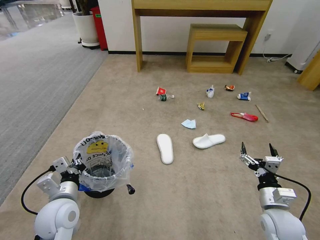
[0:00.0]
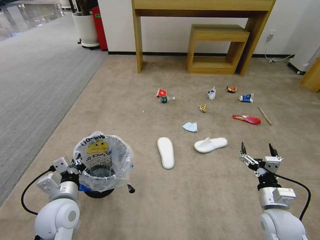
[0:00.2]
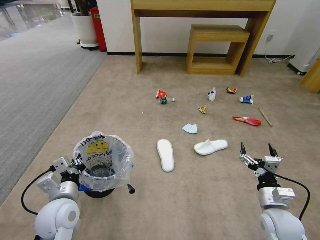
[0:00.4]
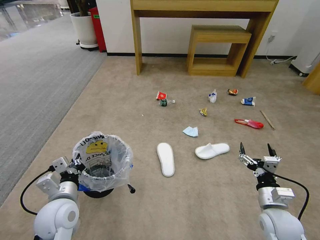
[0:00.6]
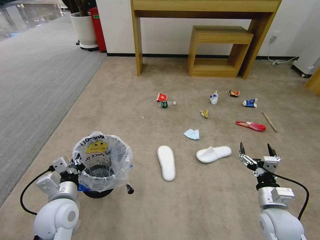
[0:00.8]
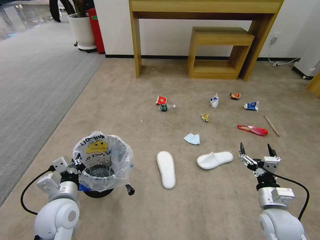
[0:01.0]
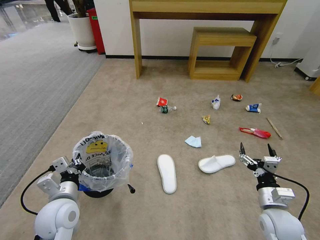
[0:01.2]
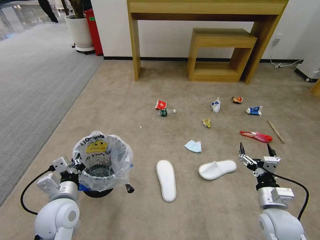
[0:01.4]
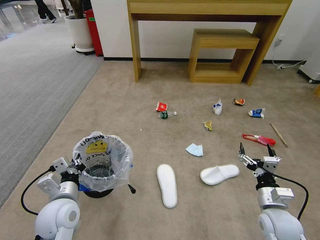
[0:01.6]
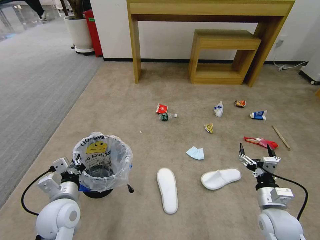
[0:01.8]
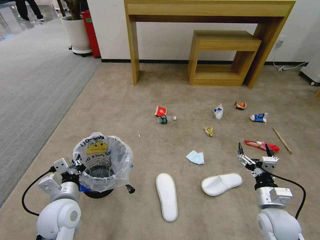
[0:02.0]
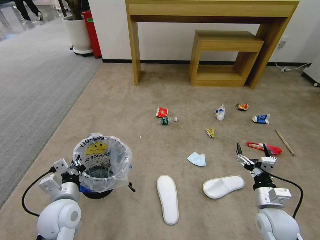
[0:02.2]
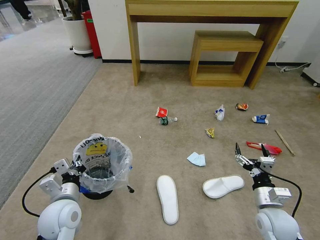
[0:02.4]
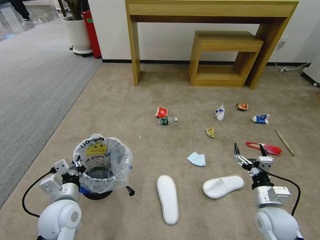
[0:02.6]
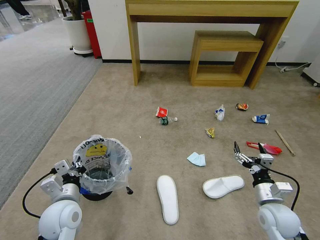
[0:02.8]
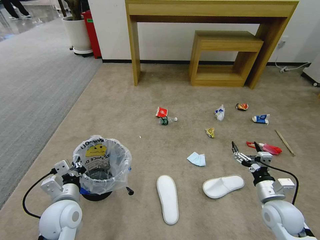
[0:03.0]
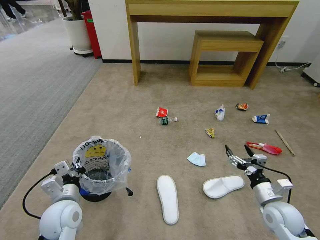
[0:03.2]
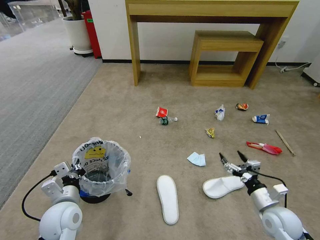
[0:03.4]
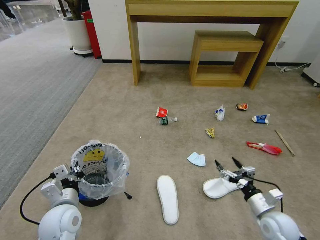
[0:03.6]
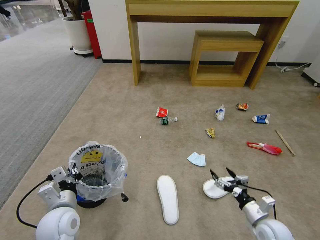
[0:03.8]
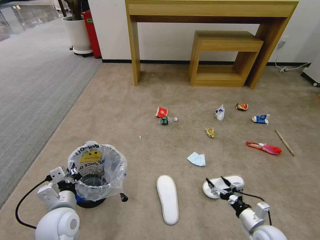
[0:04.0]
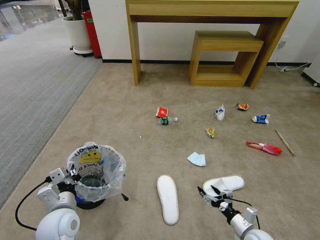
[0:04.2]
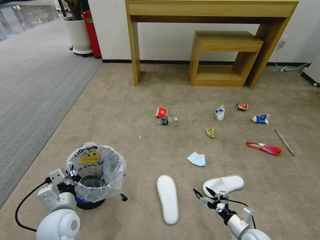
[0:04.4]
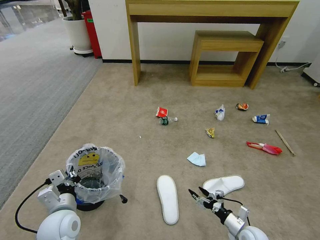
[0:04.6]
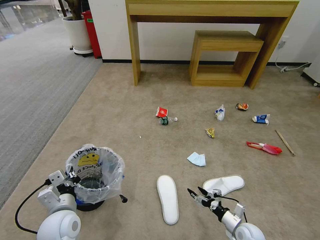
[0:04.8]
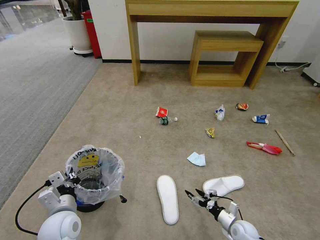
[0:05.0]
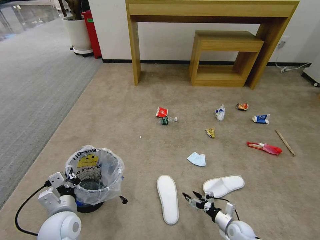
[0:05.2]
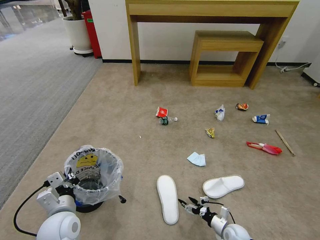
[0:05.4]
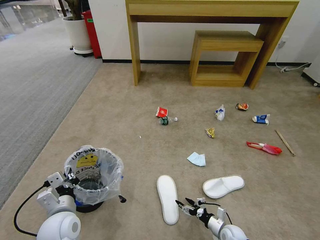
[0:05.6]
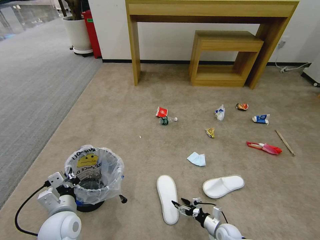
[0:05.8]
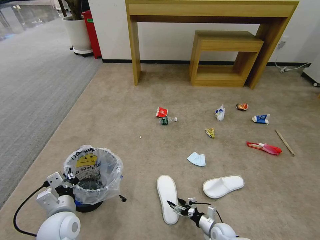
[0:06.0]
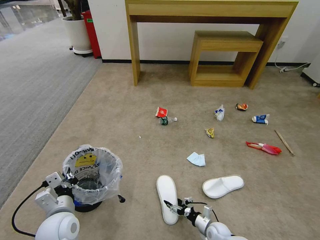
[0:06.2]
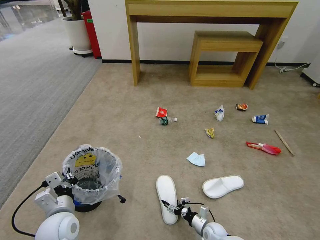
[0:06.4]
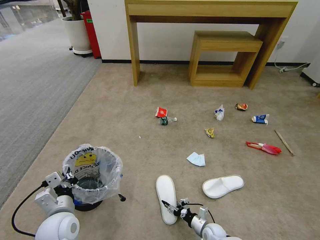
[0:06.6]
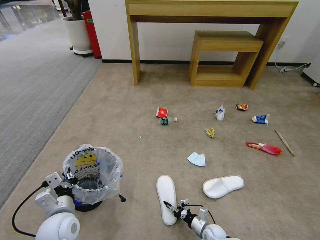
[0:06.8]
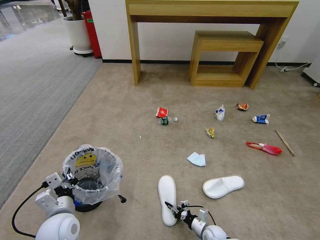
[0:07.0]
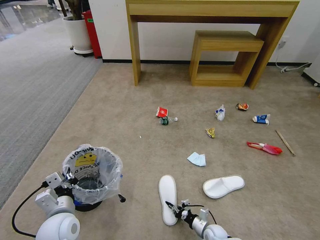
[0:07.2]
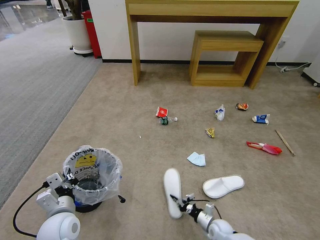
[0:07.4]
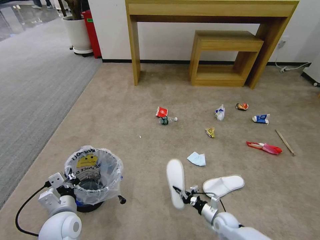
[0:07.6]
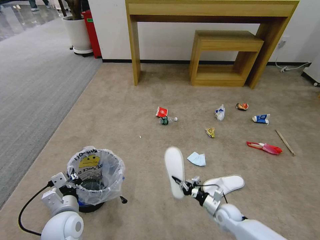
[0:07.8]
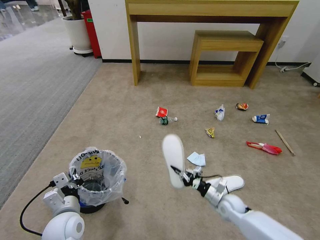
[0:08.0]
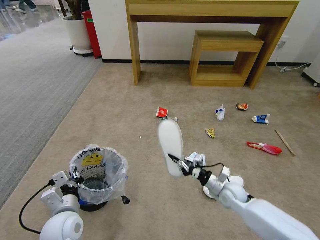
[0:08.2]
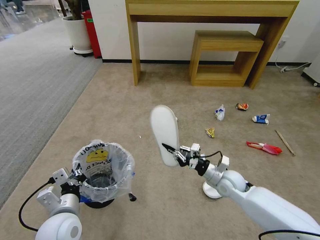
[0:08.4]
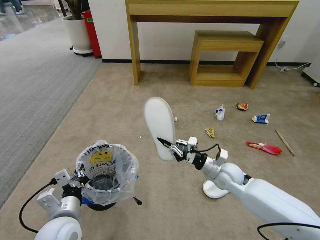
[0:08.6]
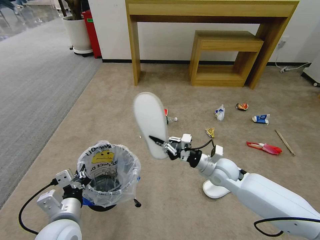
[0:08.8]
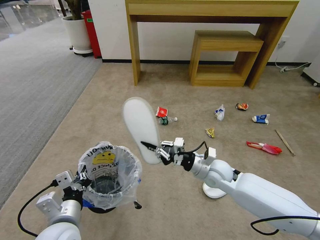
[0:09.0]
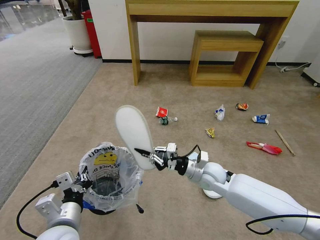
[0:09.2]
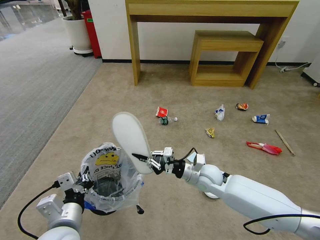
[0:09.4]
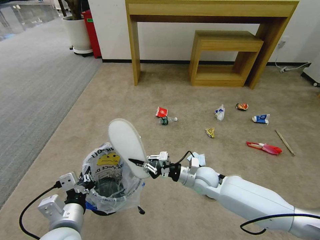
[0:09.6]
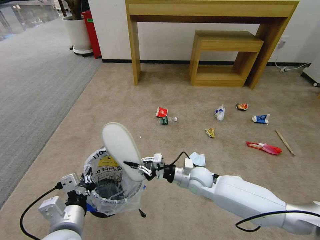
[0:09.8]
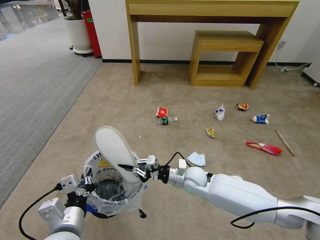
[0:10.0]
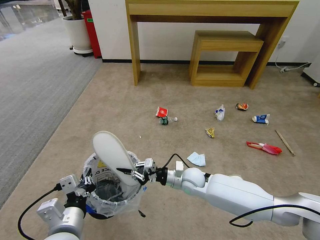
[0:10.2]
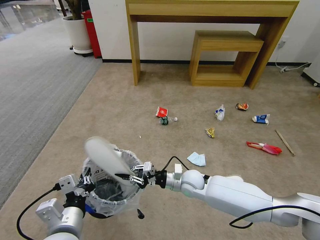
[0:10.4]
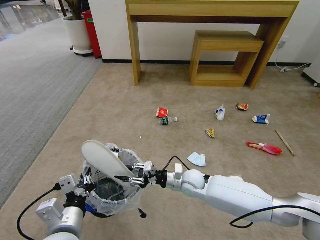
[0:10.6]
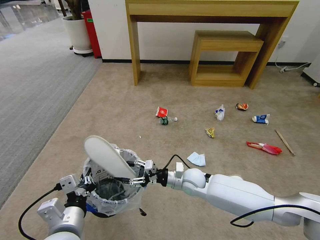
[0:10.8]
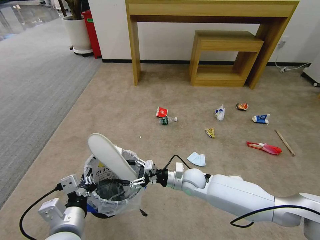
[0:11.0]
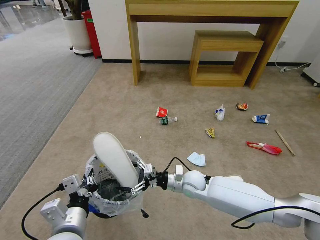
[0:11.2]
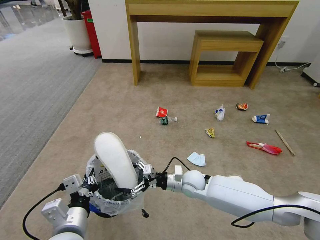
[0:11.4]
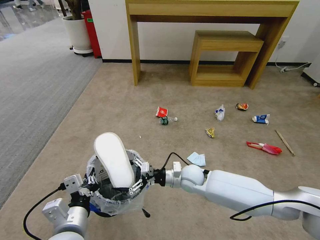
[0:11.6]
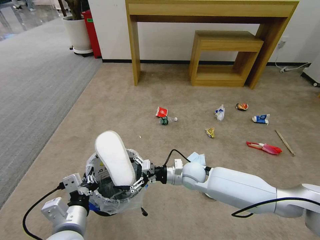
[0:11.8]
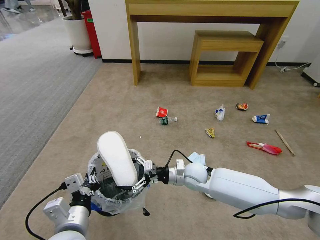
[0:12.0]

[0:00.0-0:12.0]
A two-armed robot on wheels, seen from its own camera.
Task of the whole recording: Pick up the trash bin and place the garbage on the floor into it.
0:01.6 to 0:03.0: The grippers move only a little.
0:03.0 to 0:04.4: The right gripper shifts approximately 15 cm downward.
0:04.4 to 0:06.0: The right gripper is displaced downward and to the left by some 10 cm.
0:06.0 to 0:07.6: The right gripper moves roughly 5 cm, and closes its fingers.
0:07.6 to 0:09.0: The left gripper goes approximately 5 cm upward. Meanwhile the right gripper moves upward, about 25 cm.
0:09.0 to 0:10.4: The right gripper shifts approximately 10 cm to the left and downward.
0:10.4 to 0:12.0: The right gripper opens up.

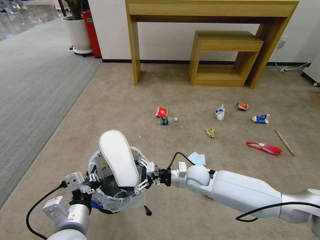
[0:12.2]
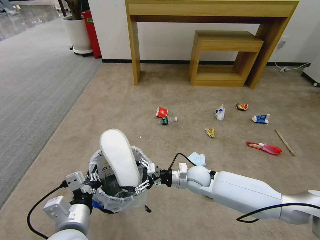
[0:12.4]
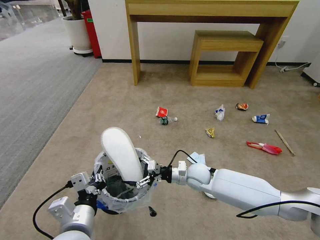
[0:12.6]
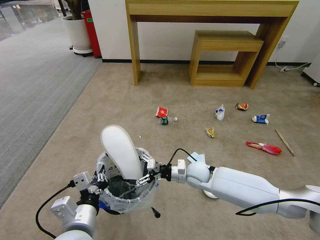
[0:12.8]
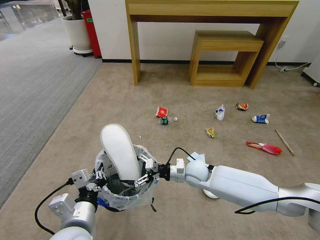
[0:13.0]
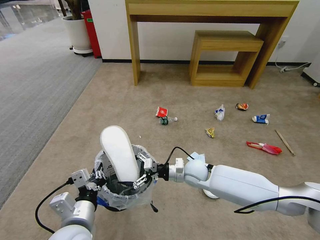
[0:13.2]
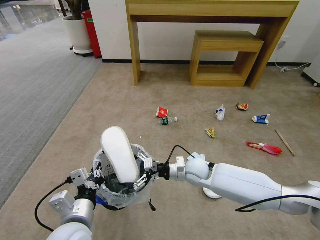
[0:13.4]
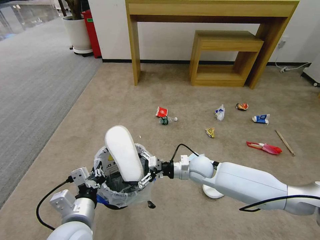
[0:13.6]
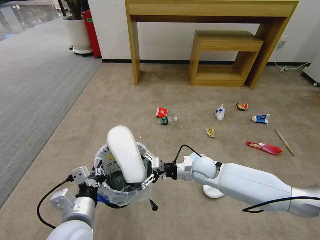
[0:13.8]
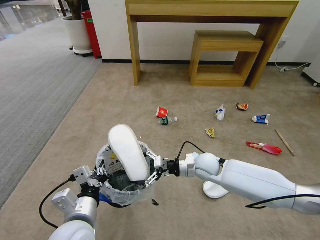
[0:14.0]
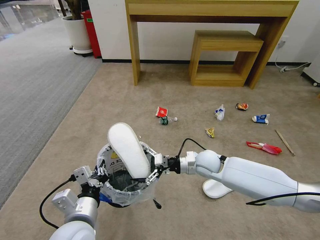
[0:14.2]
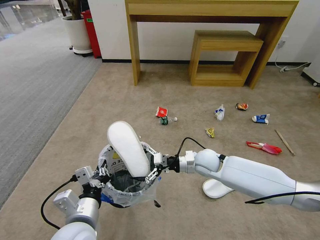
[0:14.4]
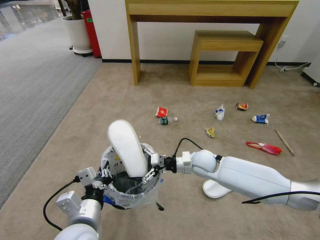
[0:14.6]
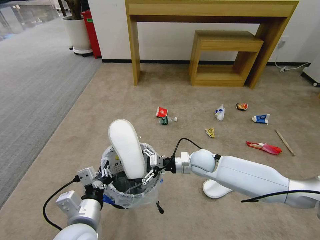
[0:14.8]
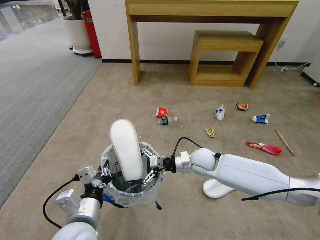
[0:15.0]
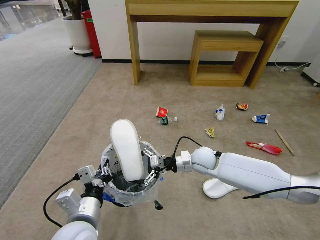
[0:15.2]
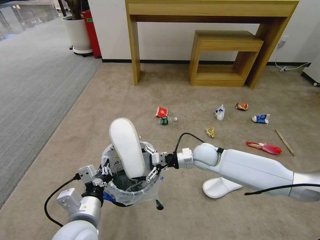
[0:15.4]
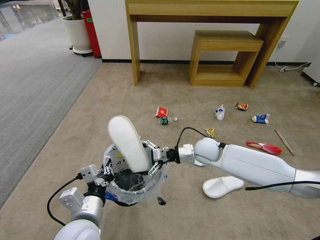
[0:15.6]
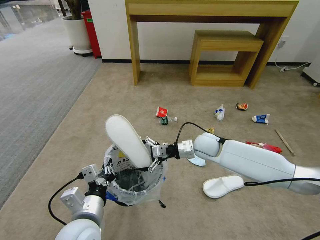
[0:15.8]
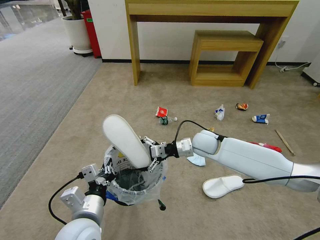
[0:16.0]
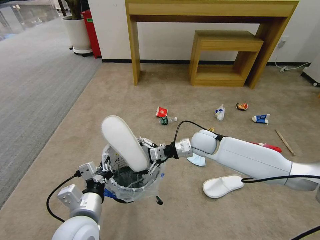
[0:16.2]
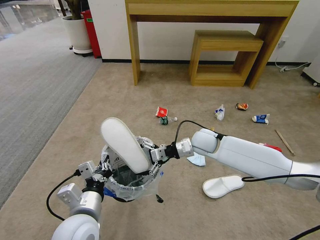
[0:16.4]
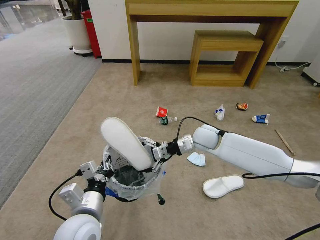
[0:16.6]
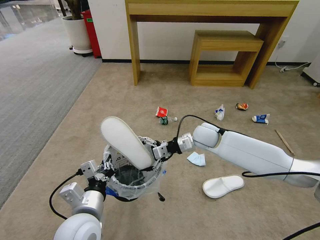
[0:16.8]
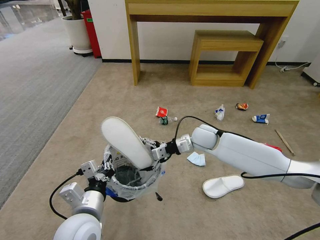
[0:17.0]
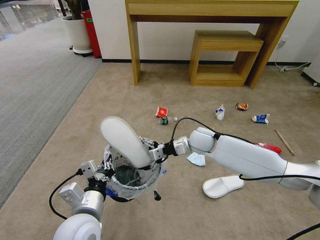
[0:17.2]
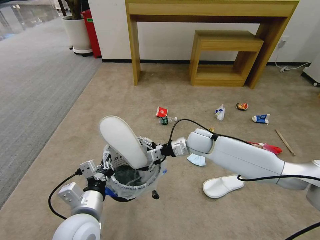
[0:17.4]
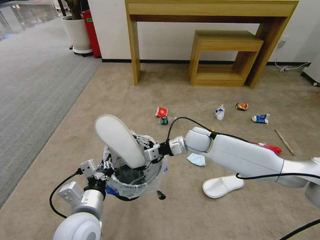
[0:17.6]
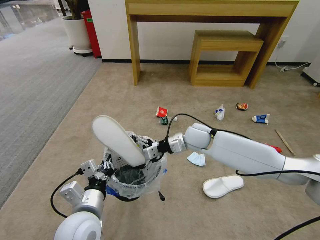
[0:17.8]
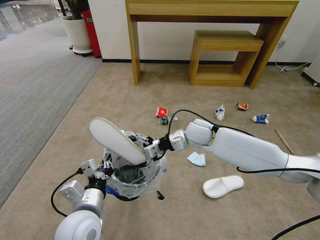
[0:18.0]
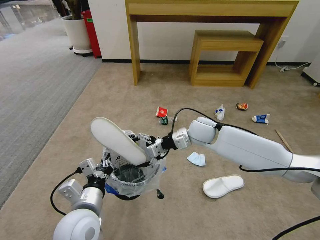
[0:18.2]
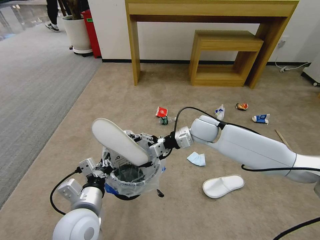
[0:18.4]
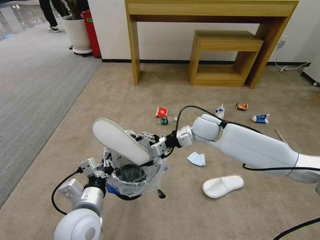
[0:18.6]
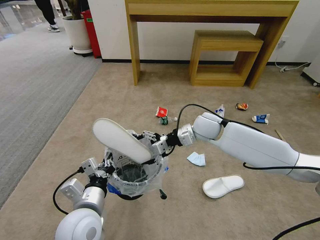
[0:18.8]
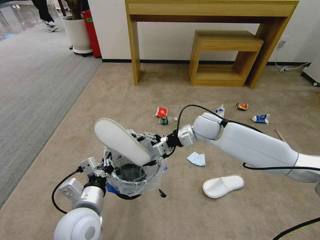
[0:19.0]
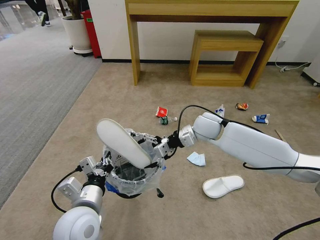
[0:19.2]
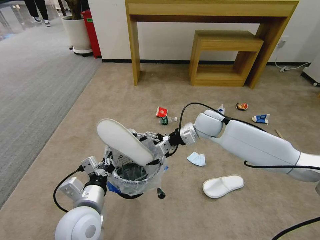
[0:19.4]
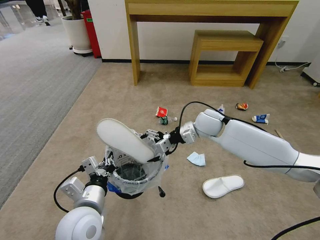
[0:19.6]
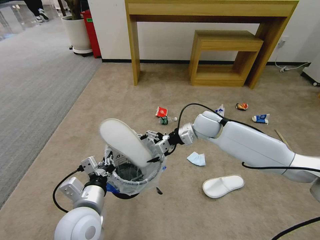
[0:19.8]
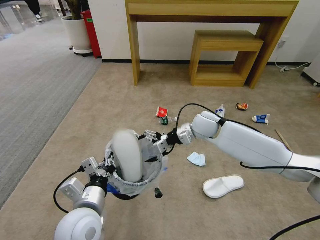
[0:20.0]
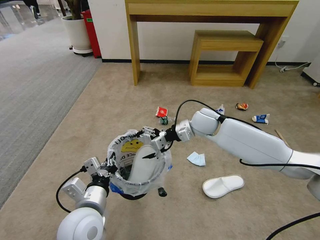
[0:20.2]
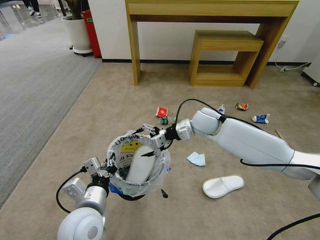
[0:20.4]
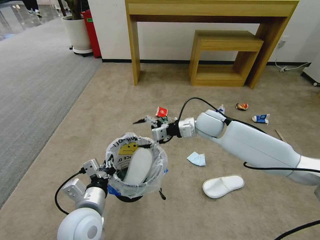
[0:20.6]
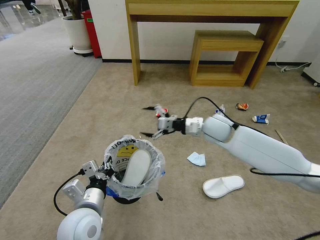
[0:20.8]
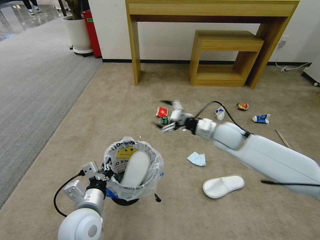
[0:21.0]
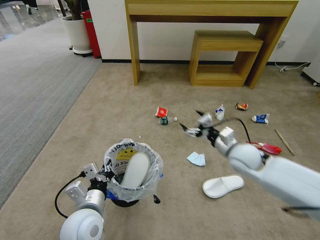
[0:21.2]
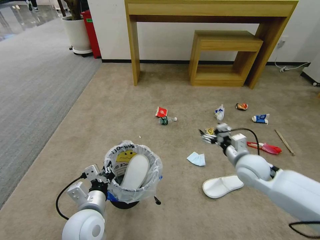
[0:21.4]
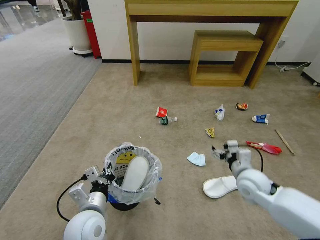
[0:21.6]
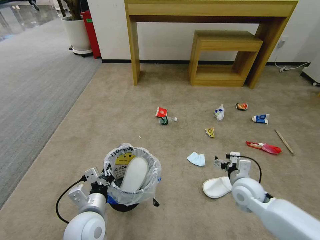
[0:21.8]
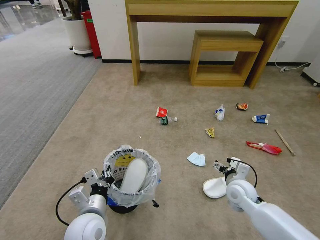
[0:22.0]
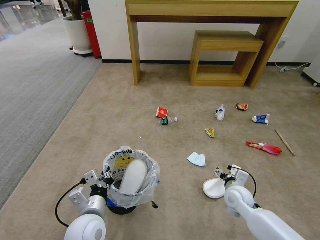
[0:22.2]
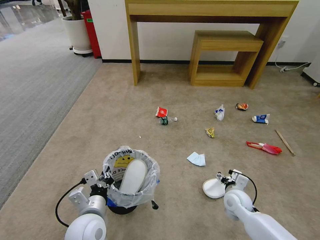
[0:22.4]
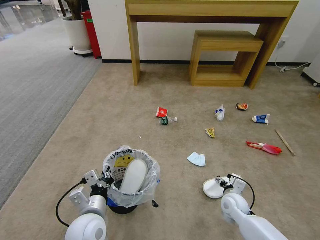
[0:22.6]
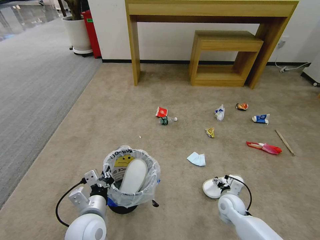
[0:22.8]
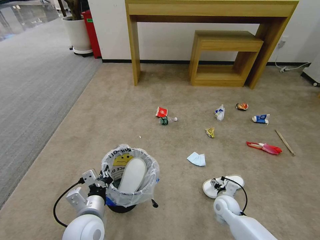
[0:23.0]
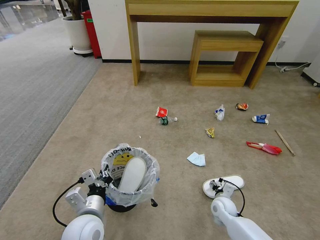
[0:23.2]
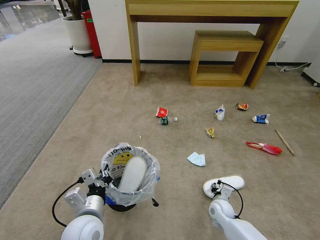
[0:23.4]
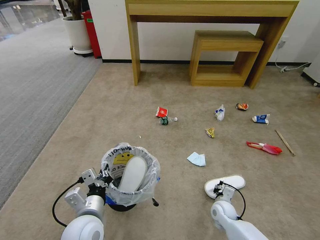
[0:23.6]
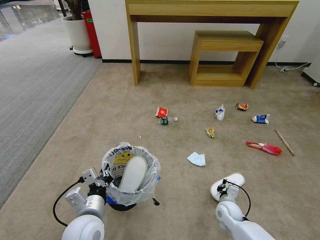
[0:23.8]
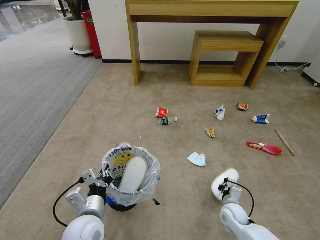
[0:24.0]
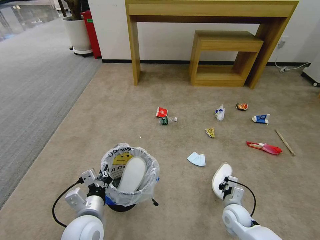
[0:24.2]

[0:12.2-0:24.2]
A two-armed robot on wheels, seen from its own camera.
Task of the whole recording: Pick up the trash bin and place the garbage on the floor into it.
0:12.2 to 0:13.8: There are only small adjustments of the grippers.
0:13.8 to 0:15.2: There are only small adjustments of the grippers.
0:15.2 to 0:16.6: The right gripper travels upward and forward by approximately 10 cm.
0:16.6 to 0:19.8: There are only small adjustments of the grippers.
0:19.8 to 0:21.2: The right gripper travels to the right and backward by approximately 10 cm.
0:21.2 to 0:22.6: The right gripper moves downward and backward, approximately 25 cm.
0:22.6 to 0:24.2: The right gripper closes its fingers.
